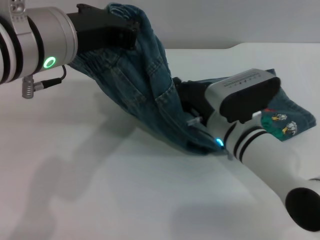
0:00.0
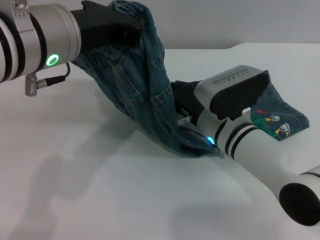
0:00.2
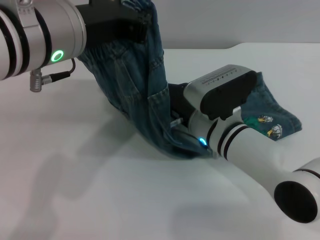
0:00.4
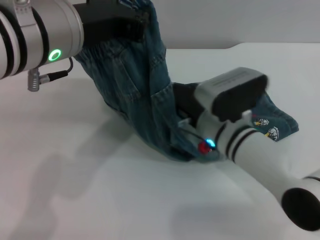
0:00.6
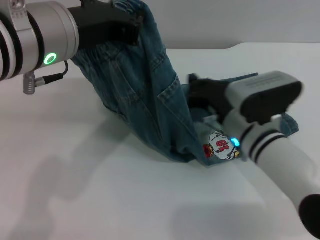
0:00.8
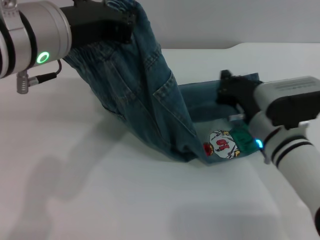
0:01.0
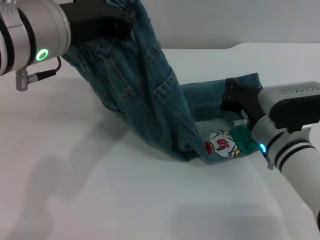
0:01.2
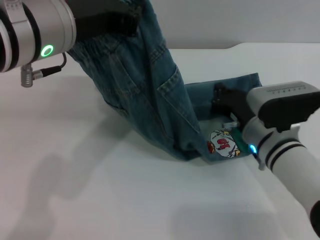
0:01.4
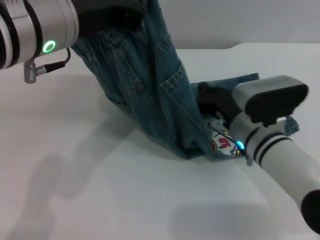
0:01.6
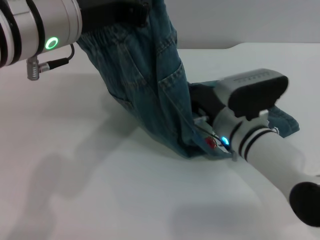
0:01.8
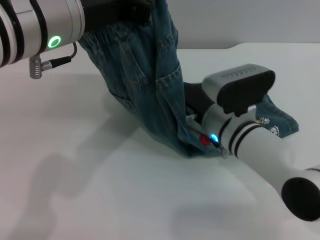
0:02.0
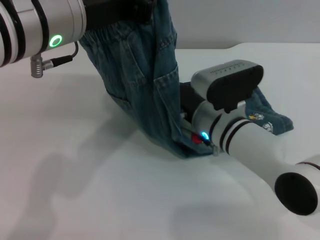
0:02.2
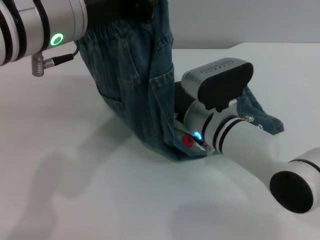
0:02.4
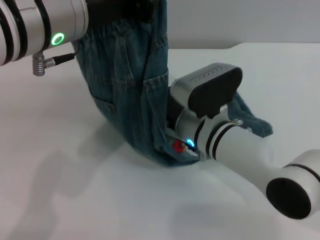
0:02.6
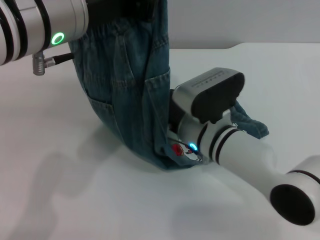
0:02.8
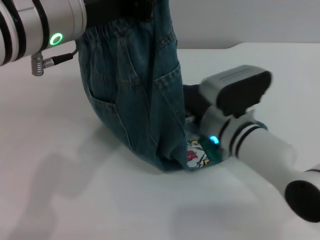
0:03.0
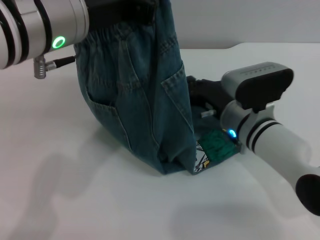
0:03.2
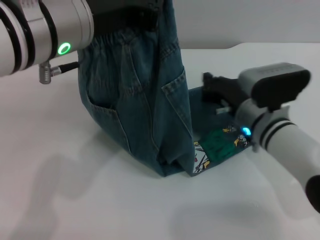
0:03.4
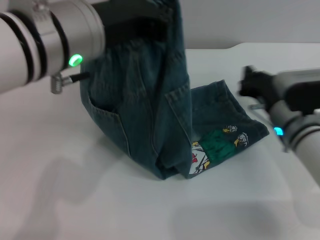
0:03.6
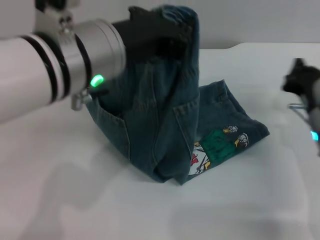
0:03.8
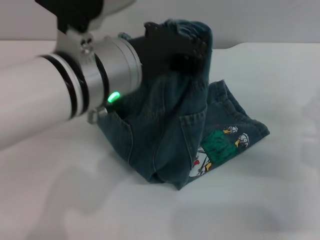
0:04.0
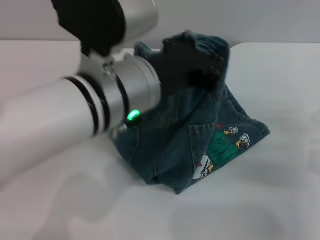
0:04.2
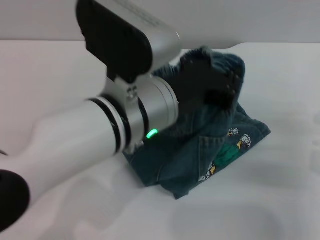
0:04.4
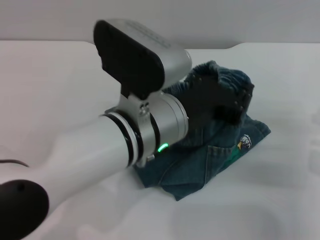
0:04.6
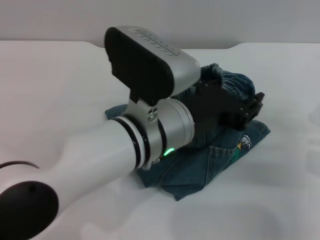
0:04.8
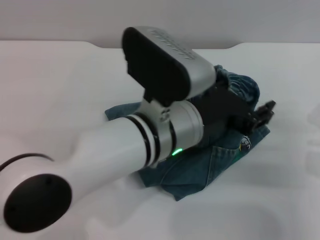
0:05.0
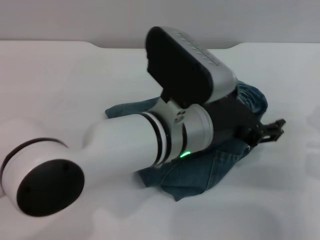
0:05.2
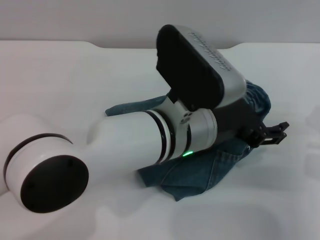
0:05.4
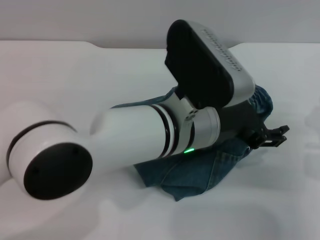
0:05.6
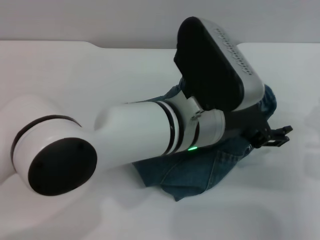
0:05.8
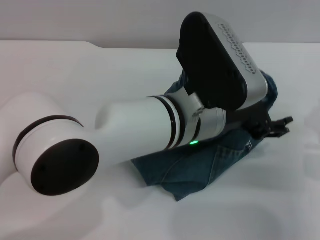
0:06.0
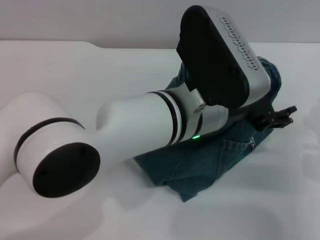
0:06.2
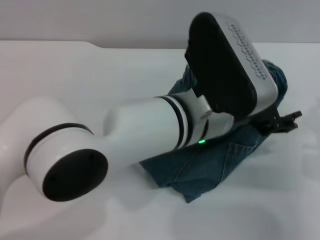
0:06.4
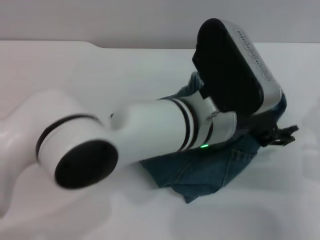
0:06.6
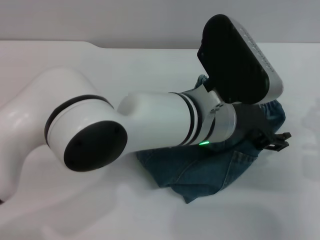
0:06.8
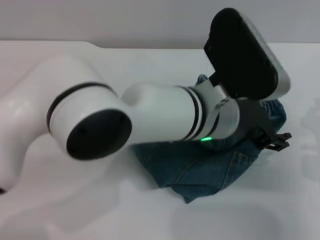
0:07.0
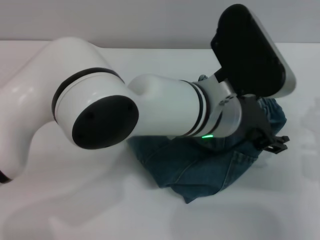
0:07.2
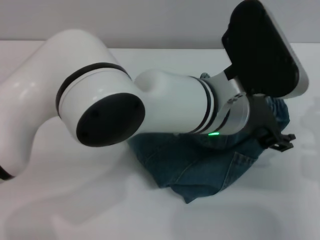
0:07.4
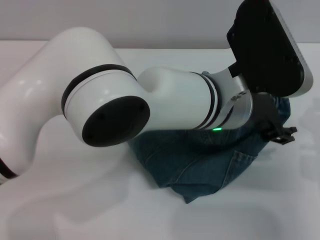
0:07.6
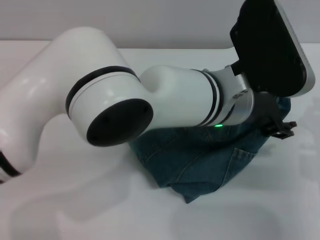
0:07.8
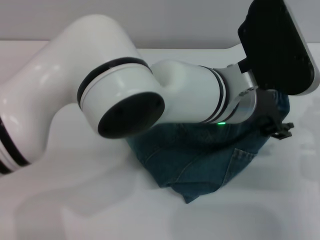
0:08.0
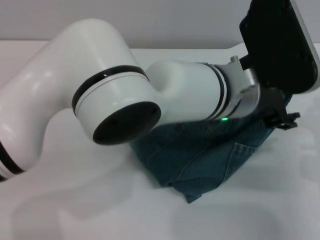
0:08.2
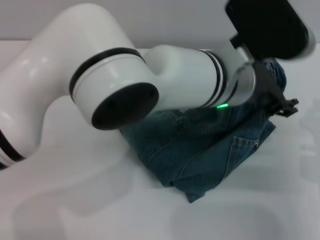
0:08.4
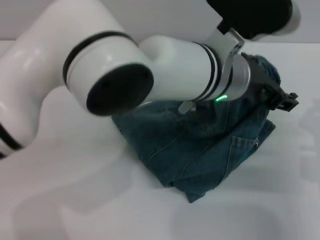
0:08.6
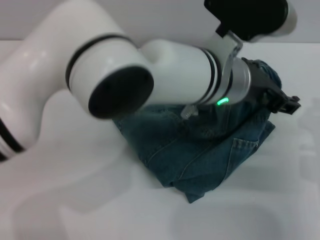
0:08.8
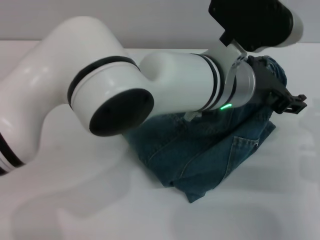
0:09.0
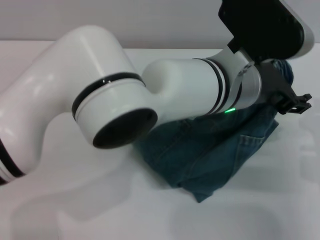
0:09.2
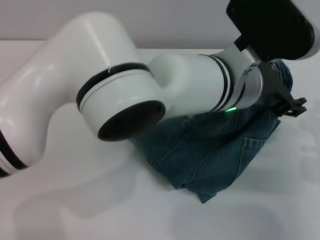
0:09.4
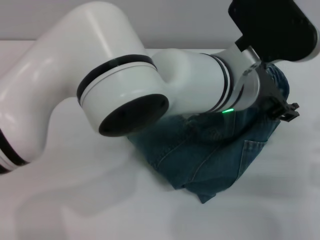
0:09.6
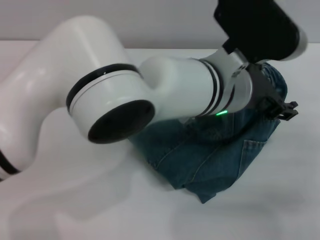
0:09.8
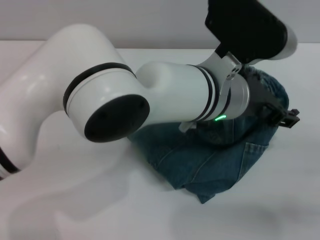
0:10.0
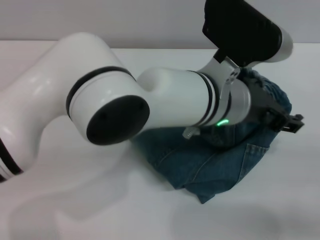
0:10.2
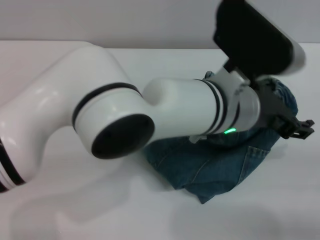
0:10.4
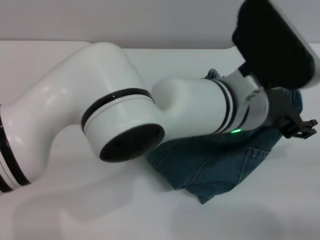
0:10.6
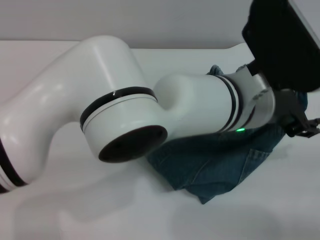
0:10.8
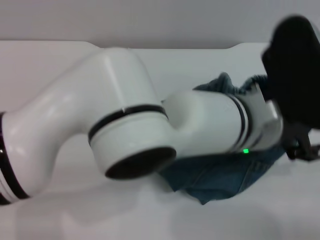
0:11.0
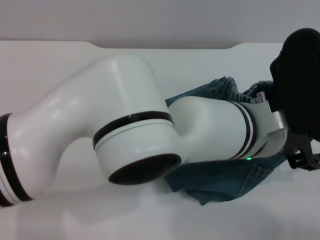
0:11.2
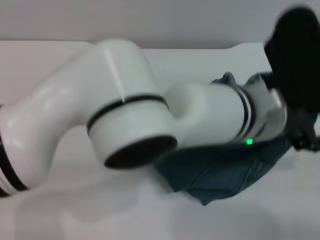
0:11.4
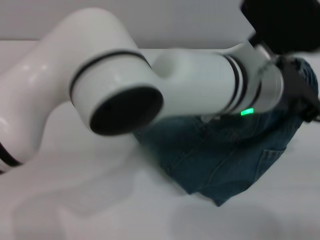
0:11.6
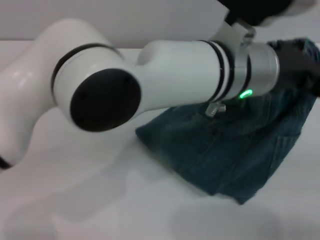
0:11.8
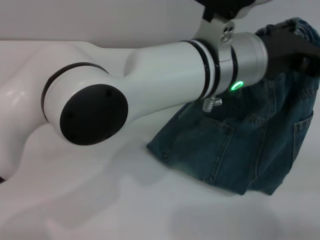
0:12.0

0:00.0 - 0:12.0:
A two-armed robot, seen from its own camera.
0:03.0 - 0:04.4: The right gripper travels to the right by about 20 cm, while the left gripper goes approximately 10 cm downward and to the right.
0:04.4 - 0:06.0: The left gripper moves to the right, some 5 cm, and opens its fingers.
0:09.0 - 0:10.4: The right gripper travels backward and to the right by about 10 cm.

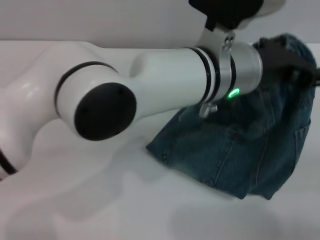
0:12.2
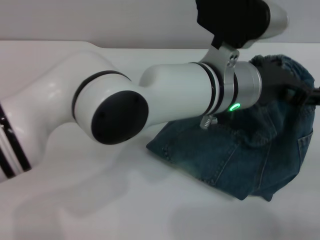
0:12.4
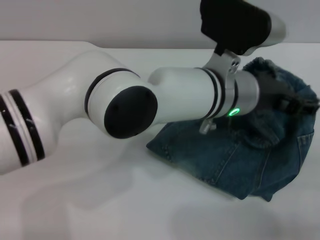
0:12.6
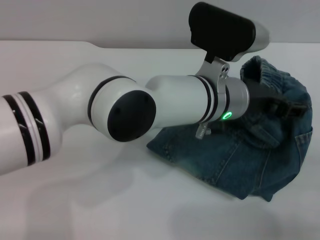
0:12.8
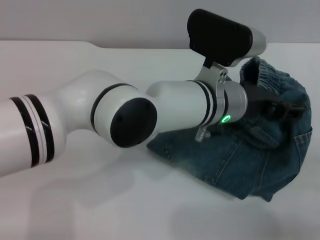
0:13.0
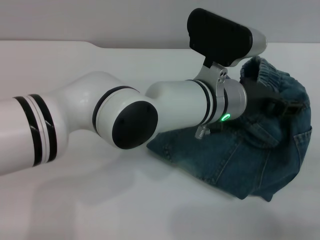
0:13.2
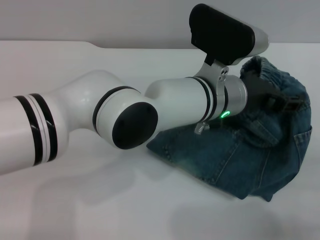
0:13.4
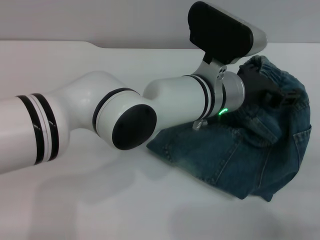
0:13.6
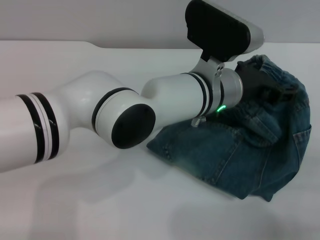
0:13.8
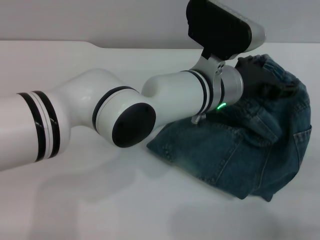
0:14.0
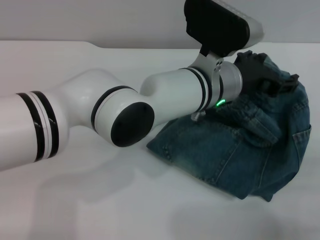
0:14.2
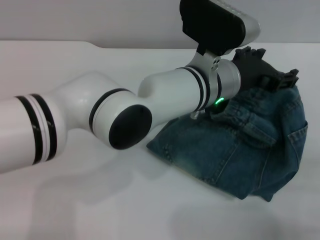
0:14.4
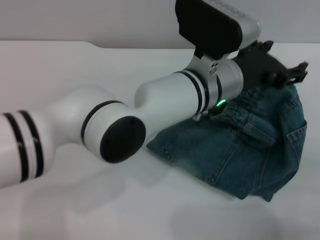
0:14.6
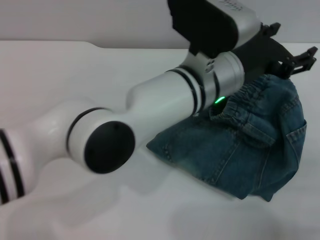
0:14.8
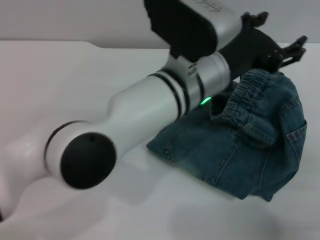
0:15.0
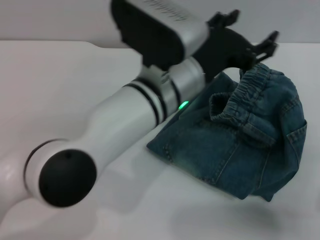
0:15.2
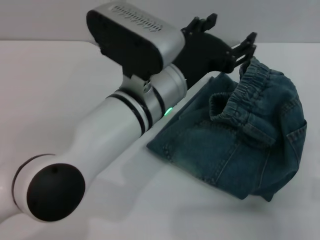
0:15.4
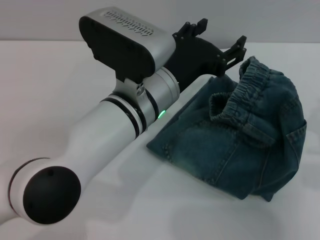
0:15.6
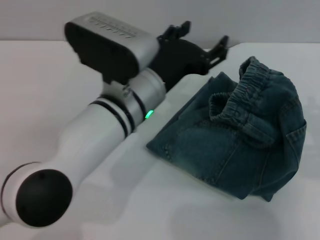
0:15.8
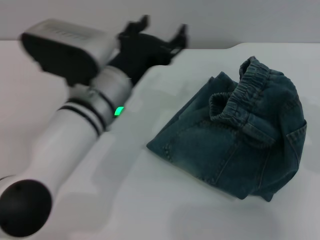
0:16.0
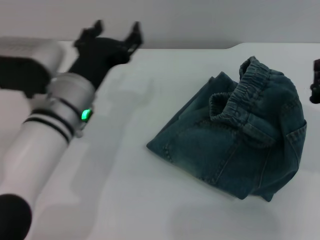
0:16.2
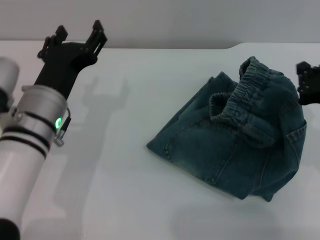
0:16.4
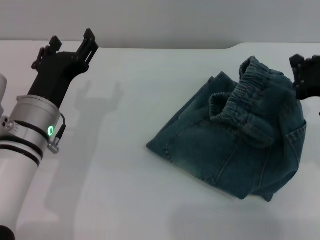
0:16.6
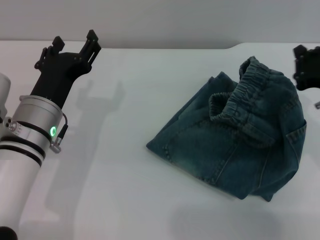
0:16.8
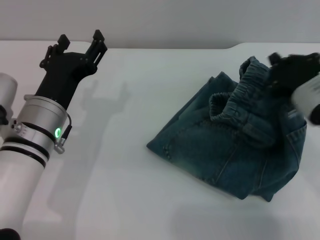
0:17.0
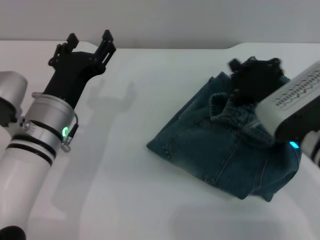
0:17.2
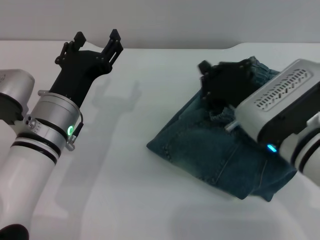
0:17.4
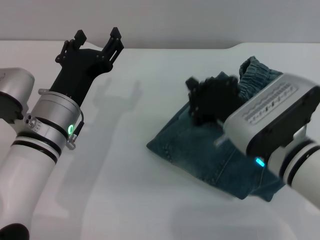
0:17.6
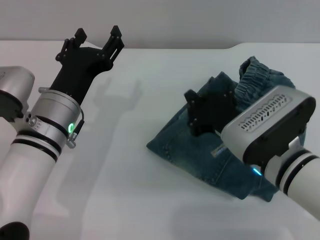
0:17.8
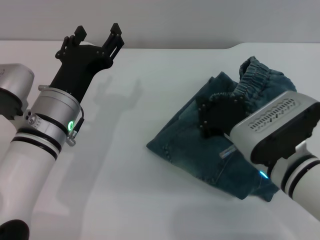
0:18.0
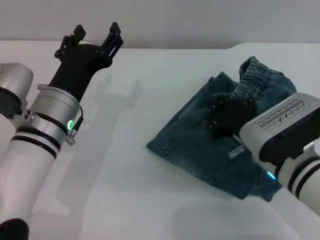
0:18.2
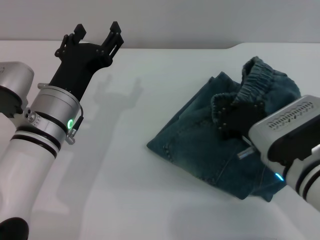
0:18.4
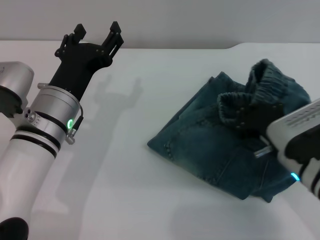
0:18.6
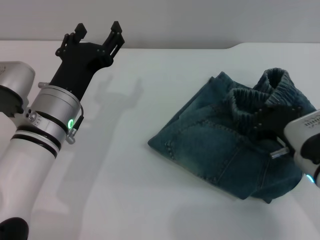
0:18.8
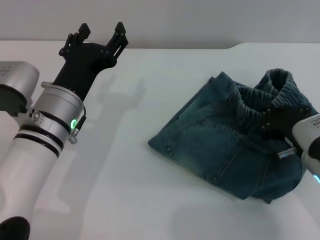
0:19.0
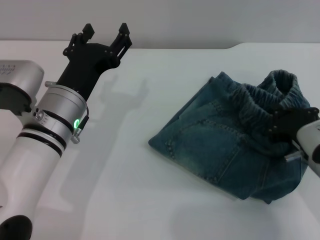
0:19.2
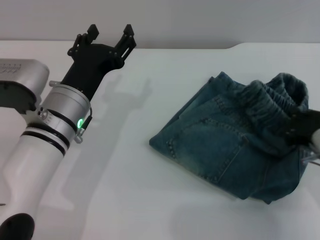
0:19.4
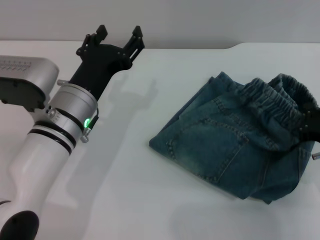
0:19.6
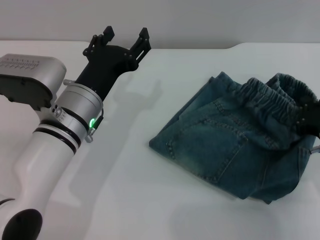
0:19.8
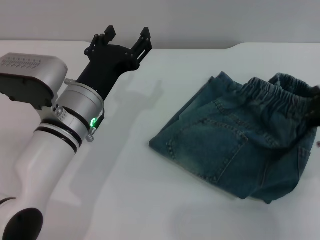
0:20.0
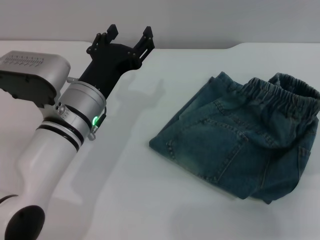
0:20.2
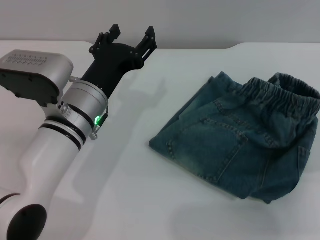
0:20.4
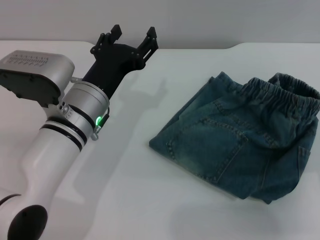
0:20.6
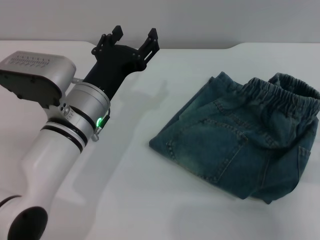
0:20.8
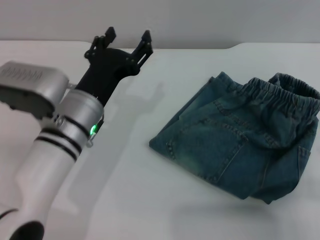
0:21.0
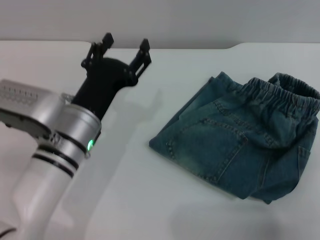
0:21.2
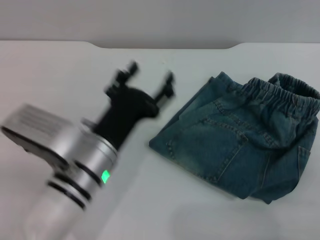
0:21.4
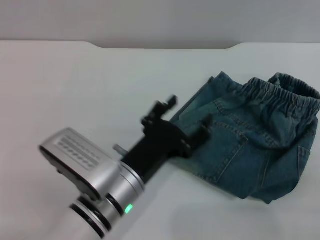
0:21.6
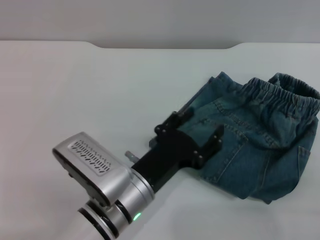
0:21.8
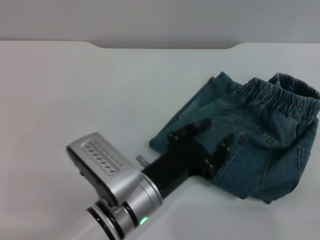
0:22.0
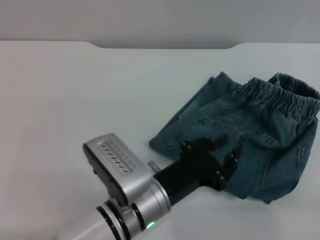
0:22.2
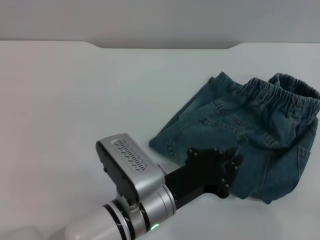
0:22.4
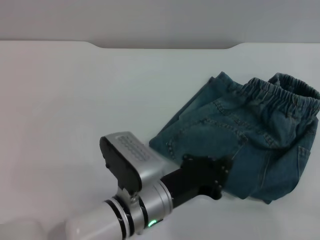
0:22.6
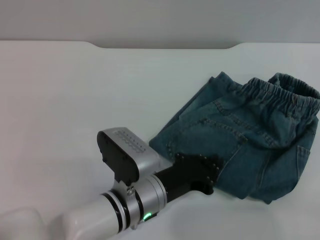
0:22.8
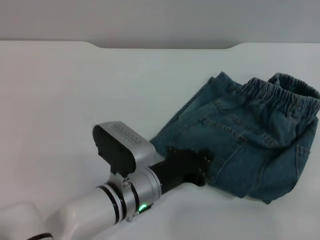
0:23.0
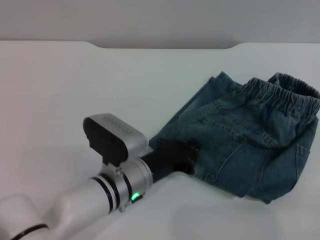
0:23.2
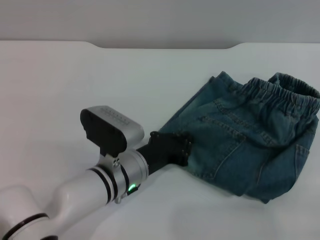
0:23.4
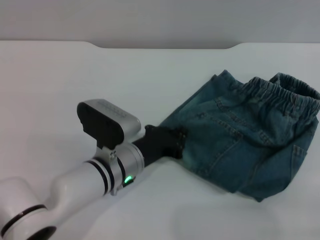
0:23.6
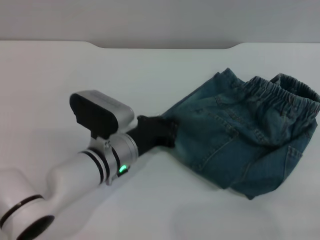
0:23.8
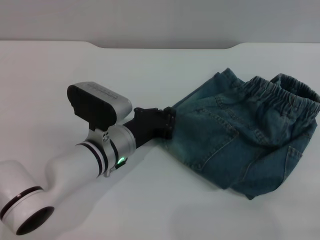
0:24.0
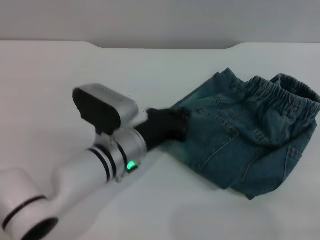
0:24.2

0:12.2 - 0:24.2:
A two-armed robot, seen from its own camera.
Step, 0:12.2 - 0:14.4: Fold the pants from left to right with the left gripper.
0:12.2 - 0:13.8: The left gripper travels downward by approximately 5 cm.
0:13.8 - 0:15.2: The left gripper goes some 5 cm to the left.
0:15.2 - 0:16.6: The left gripper heads to the left and downward, covering roughly 15 cm. Meanwhile the right gripper moves upward and forward, about 10 cm.
0:16.6 - 0:18.2: The right gripper travels to the left and downward by approximately 10 cm.
0:18.2 - 0:19.8: The right gripper is displaced to the right by approximately 10 cm.
0:19.8 - 0:21.2: The right gripper is displaced backward by some 5 cm.
0:21.2 - 0:22.6: The left gripper moves to the right, downward and backward, roughly 10 cm, and closes; the right gripper shifts about 10 cm backward.
0:22.6 - 0:24.2: The left gripper heads forward, covering some 10 cm.
